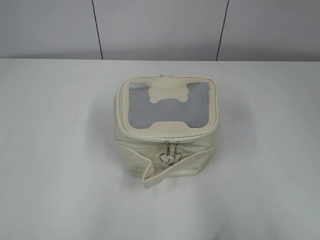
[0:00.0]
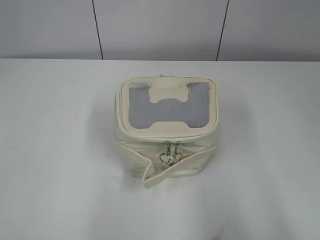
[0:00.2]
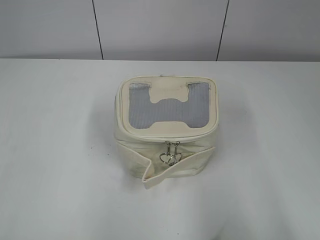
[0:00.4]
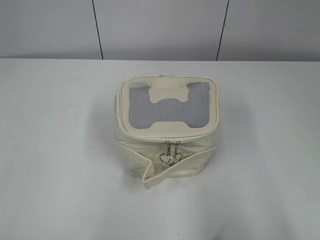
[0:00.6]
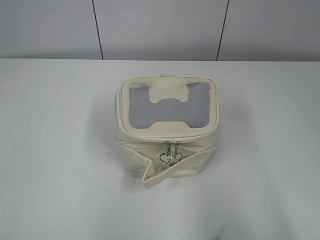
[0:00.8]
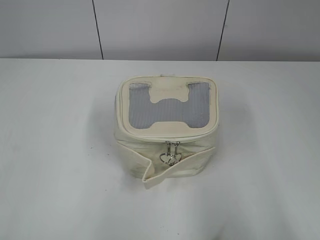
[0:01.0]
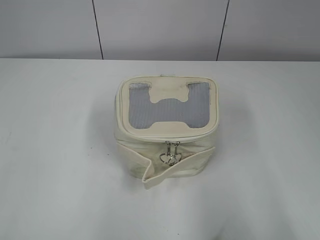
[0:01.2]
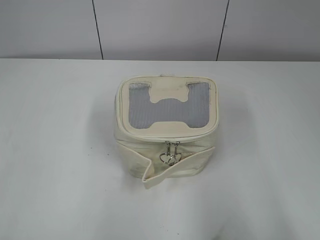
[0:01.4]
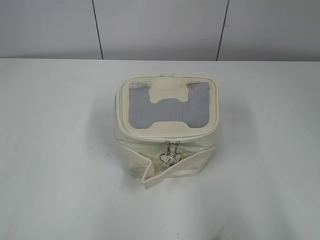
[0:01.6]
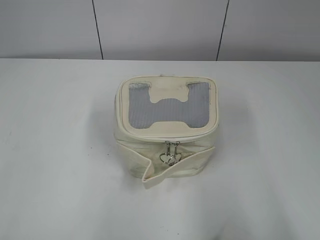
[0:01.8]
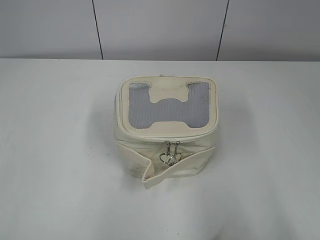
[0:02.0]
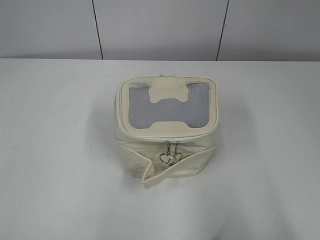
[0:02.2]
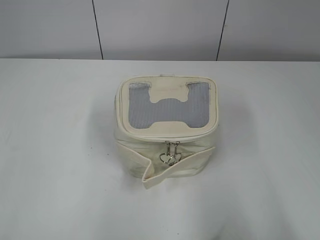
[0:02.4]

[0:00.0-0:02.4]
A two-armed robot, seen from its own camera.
0:01.2 to 0:02.4: The two grippers keep their place.
